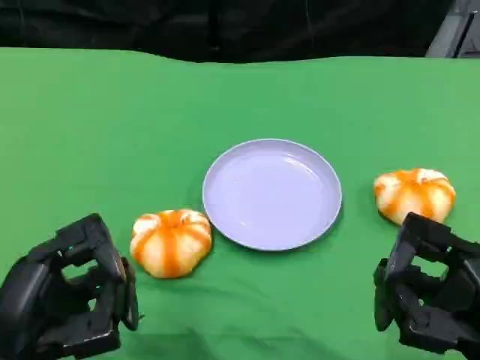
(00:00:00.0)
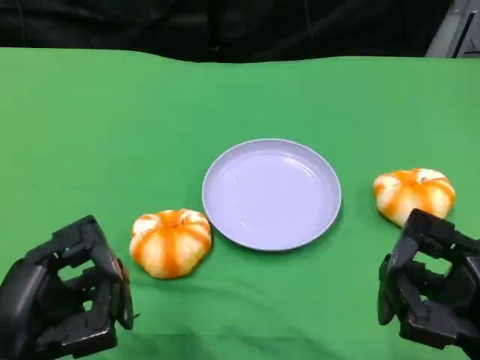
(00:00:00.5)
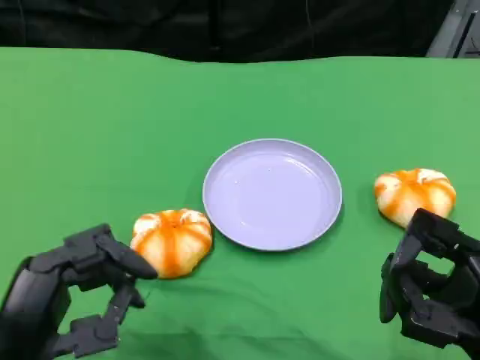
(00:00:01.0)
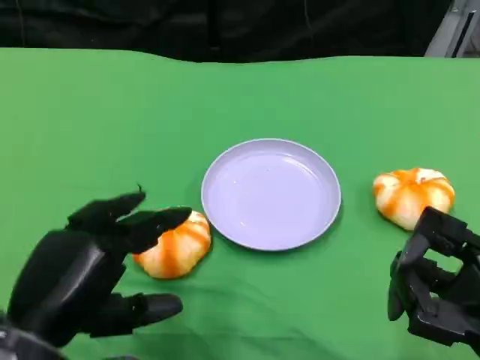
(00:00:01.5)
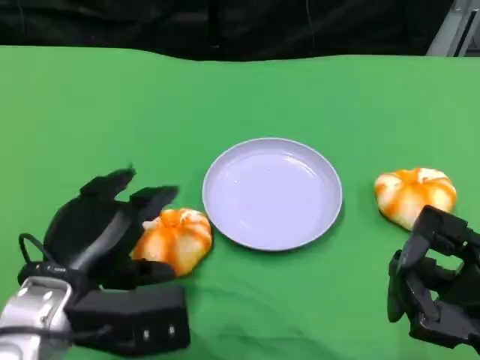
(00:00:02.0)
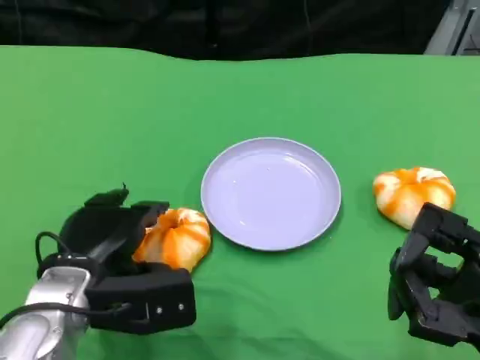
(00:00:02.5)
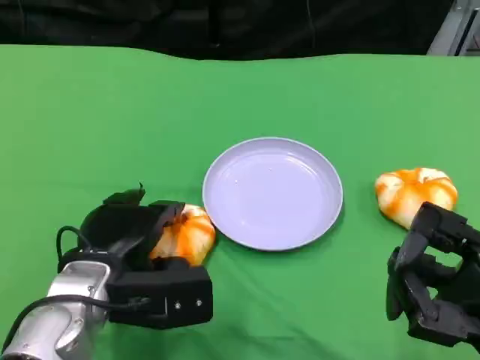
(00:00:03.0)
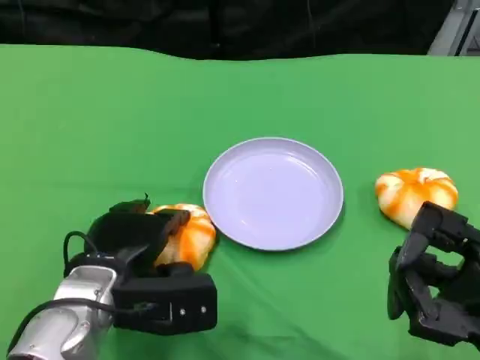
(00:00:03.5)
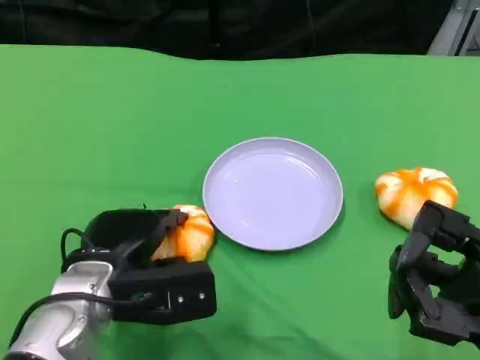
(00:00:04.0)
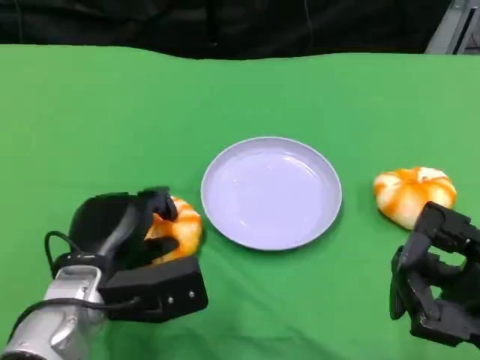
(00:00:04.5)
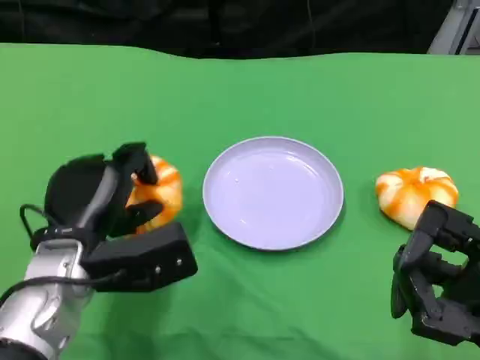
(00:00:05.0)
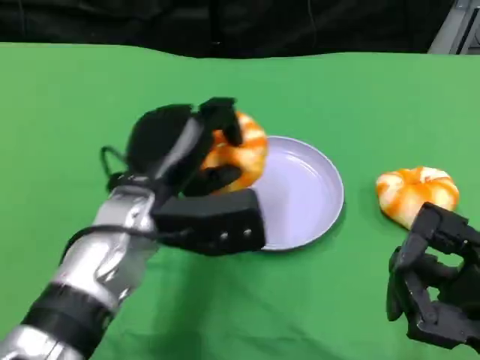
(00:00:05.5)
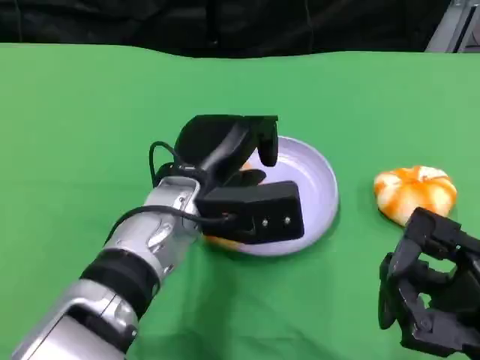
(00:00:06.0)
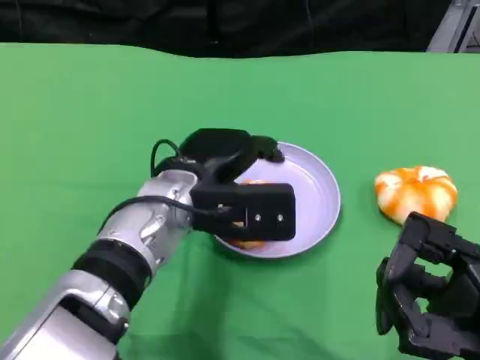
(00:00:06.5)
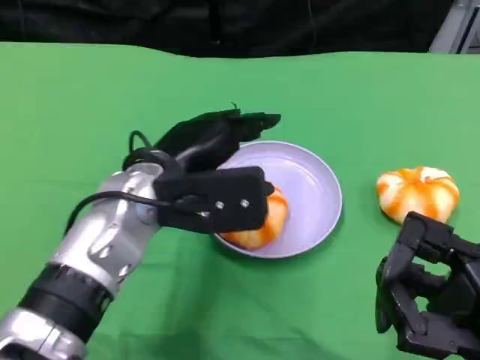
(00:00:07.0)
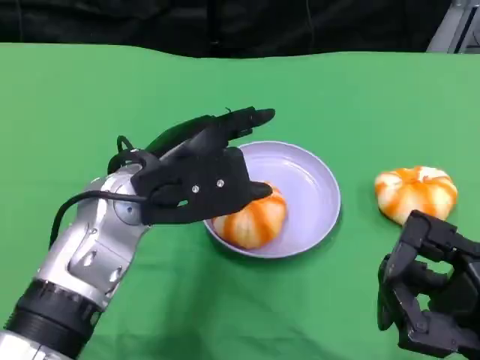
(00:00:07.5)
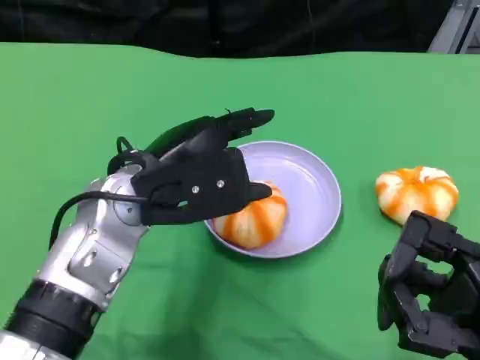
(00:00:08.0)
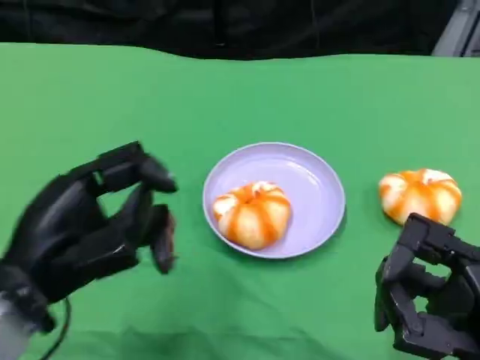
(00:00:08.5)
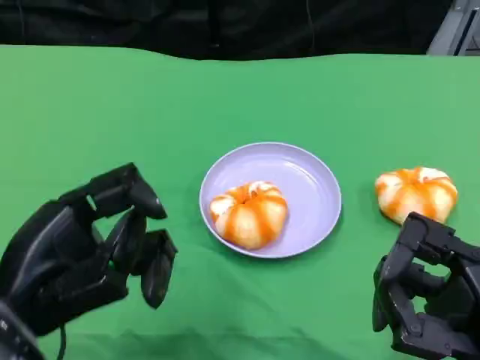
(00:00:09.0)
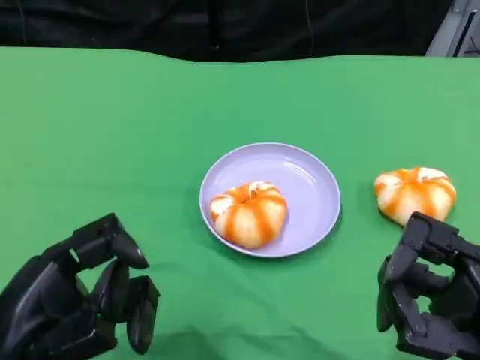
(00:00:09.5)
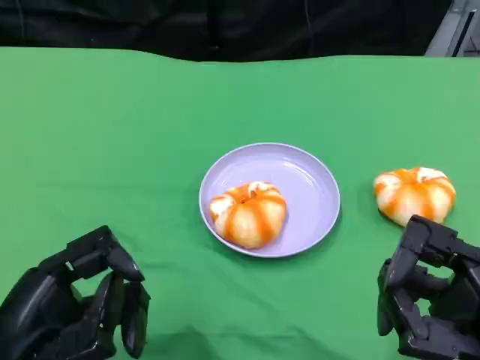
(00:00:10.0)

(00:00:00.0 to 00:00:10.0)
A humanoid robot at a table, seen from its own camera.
Task of the whole recording: Grasp the bread from the table and place it into the plate.
00:00:00.0 - 00:00:02.0: The left hand shifts approximately 10 cm forward.
00:00:02.0 - 00:00:04.0: The left hand shifts by about 5 cm.
00:00:04.0 - 00:00:06.0: The left hand is displaced to the right, upward and forward by approximately 10 cm.
00:00:06.0 - 00:00:08.0: The left hand shifts approximately 5 cm to the left.
00:00:08.0 - 00:00:10.0: The left hand shifts some 20 cm backward and to the left.

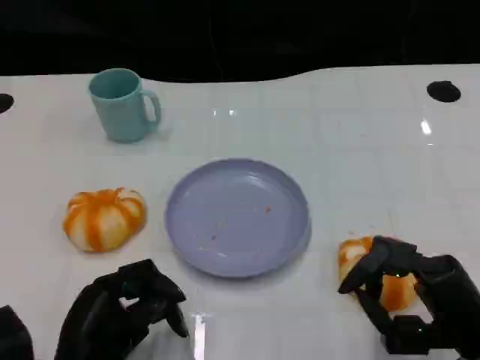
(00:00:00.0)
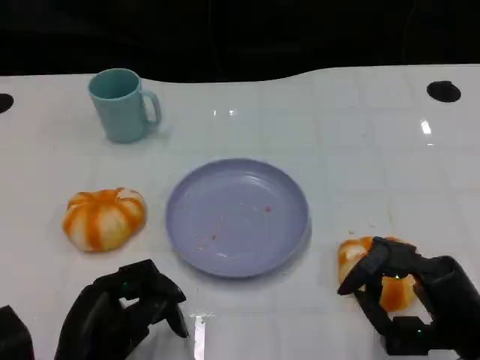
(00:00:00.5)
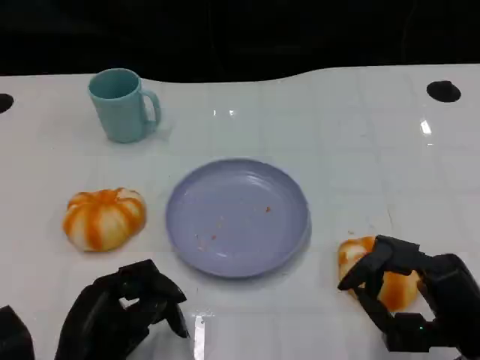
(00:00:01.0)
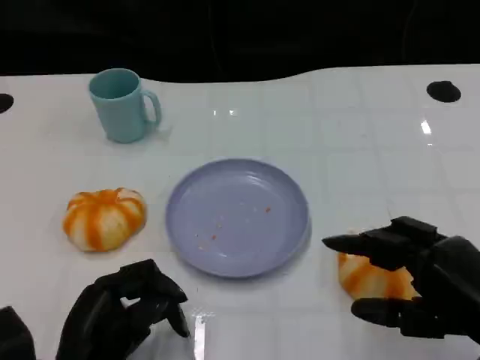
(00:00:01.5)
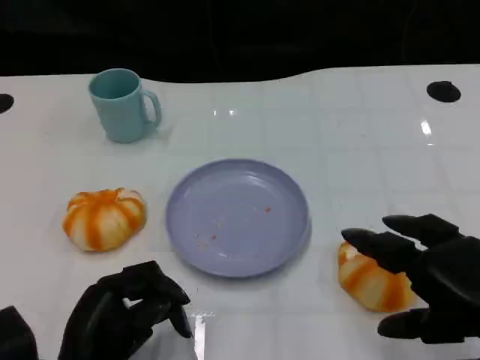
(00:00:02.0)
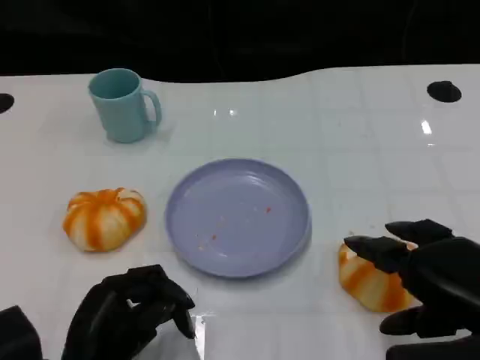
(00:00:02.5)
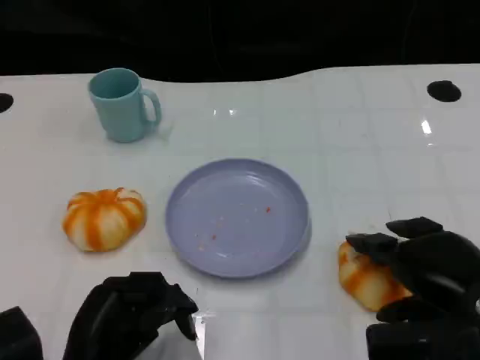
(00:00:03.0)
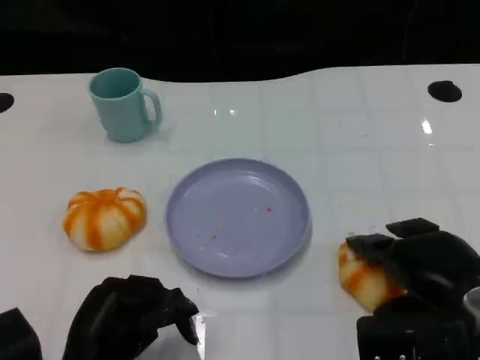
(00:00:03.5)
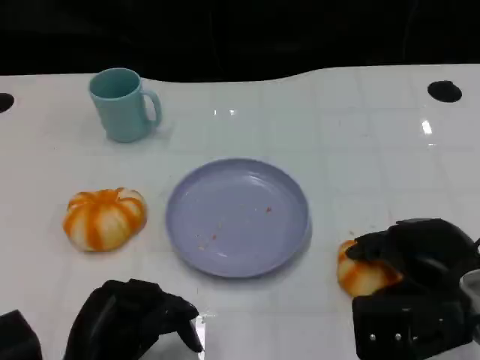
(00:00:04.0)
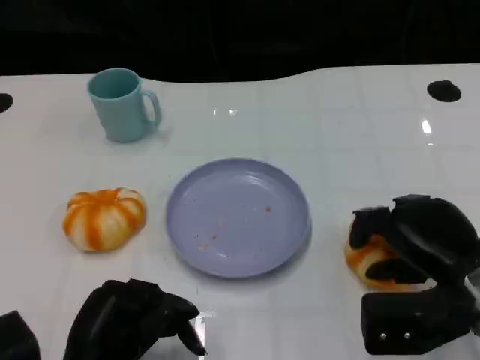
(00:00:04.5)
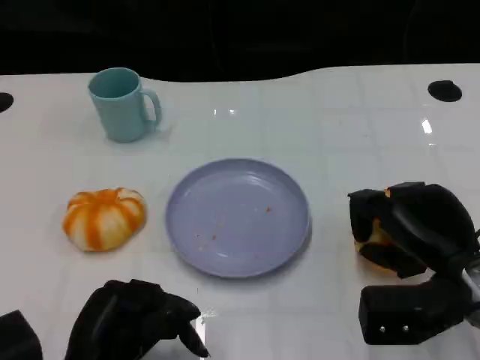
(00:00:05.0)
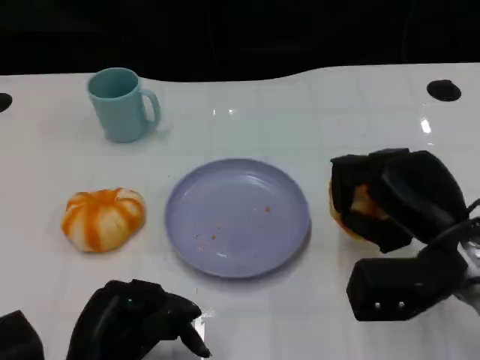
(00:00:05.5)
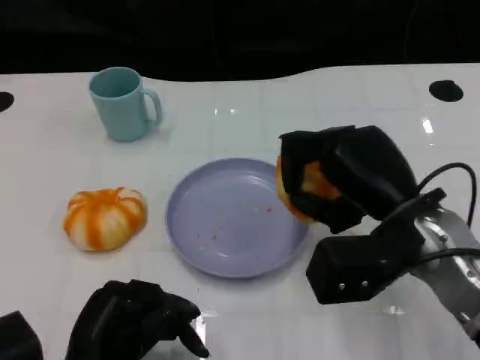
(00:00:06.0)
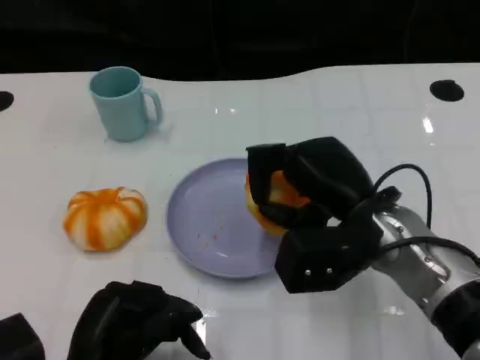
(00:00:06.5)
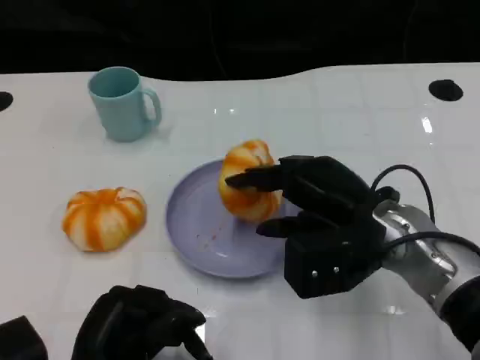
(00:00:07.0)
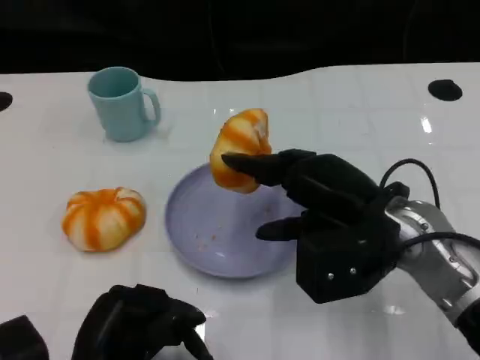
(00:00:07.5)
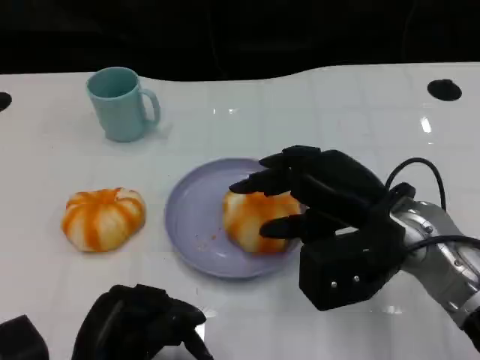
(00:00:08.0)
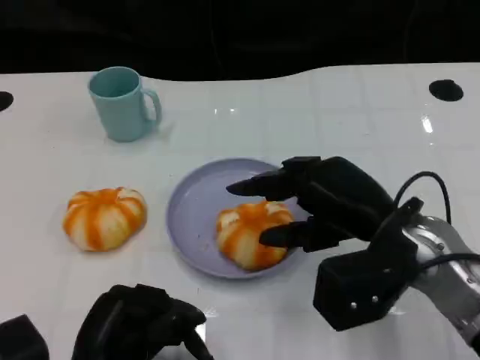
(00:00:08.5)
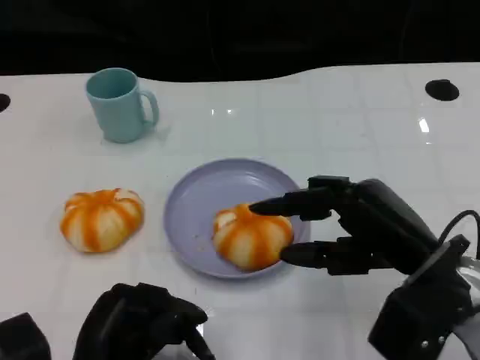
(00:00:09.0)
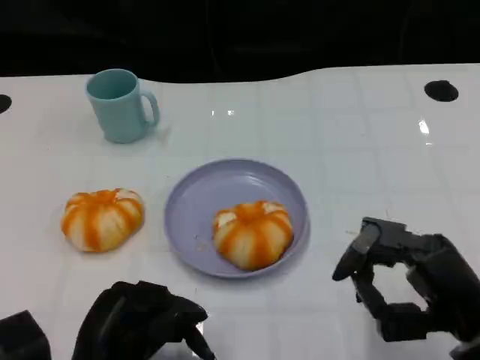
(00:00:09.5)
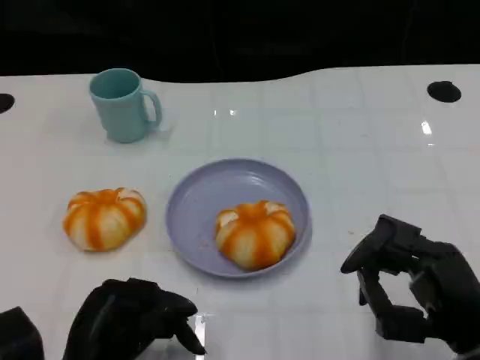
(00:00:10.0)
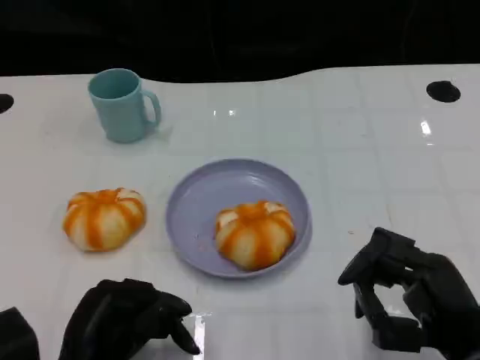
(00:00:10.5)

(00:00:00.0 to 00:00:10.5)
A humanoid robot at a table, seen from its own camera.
Task of the whole recording: Grasp the bread from the table and place it into the plate.
00:00:00.0 - 00:00:02.0: The right hand is displaced upward by about 5 cm.
00:00:02.0 - 00:00:04.0: The right hand is displaced forward by roughly 5 cm.
00:00:04.0 - 00:00:06.5: The right hand travels to the left and forward by about 10 cm.
00:00:06.5 - 00:00:08.5: There are only small adjustments of the hands.
00:00:08.5 - 00:00:10.5: The right hand travels backward, downward and to the right by about 15 cm.

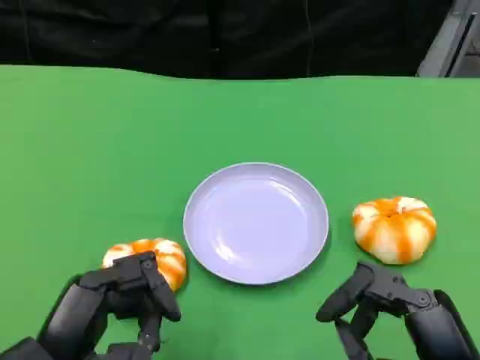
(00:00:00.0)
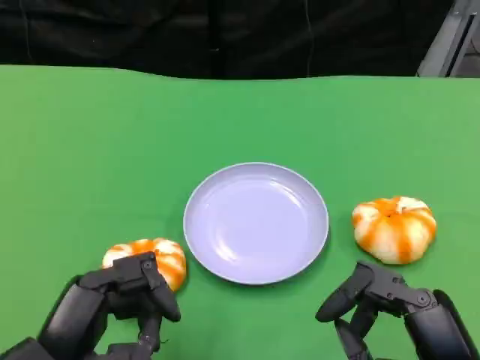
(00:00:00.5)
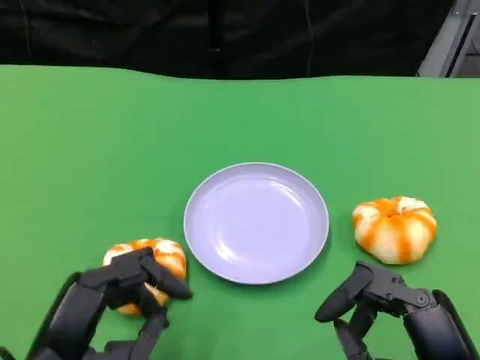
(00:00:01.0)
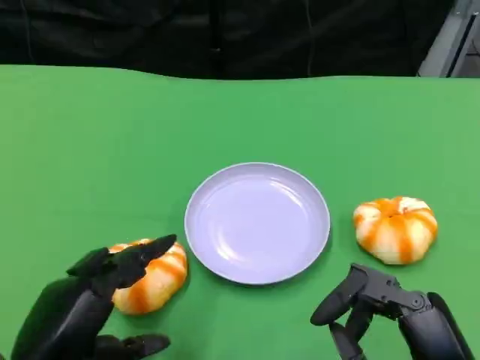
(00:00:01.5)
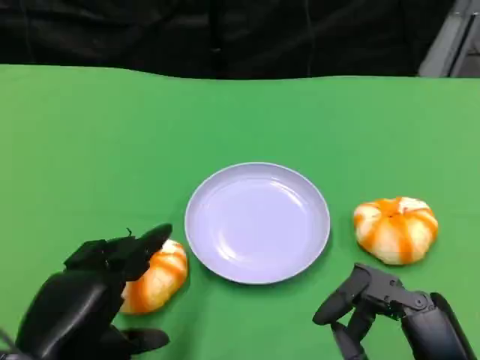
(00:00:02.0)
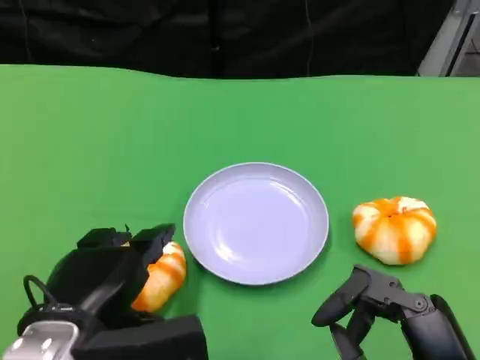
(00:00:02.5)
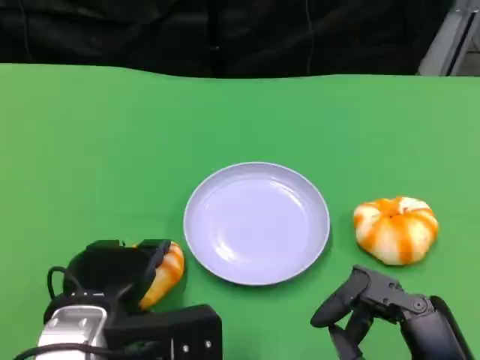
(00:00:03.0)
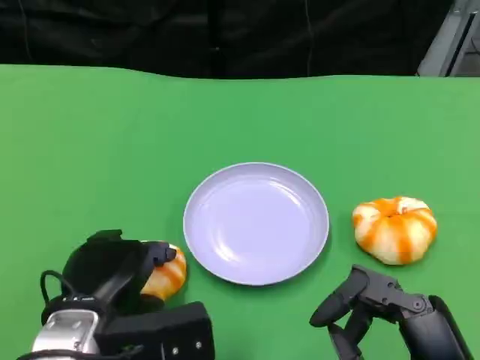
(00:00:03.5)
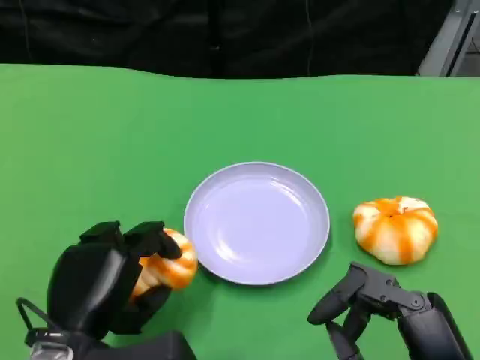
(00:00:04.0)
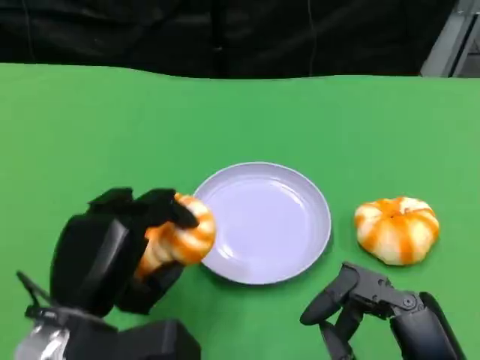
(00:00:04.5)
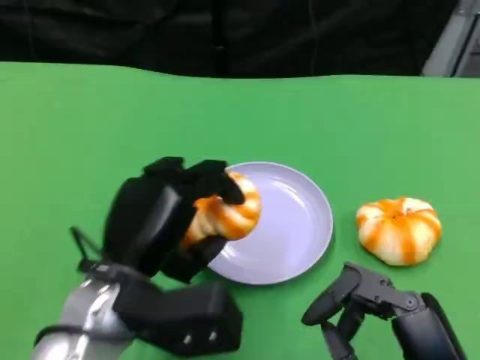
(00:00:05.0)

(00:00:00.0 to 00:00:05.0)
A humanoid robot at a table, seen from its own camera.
Task of the whole recording: Grasp the bread from the table and place it into the plate.
00:00:00.0 - 00:00:02.5: The left hand shifts by some 5 cm.
00:00:02.5 - 00:00:05.0: The left hand heads forward and to the right, covering about 5 cm.
